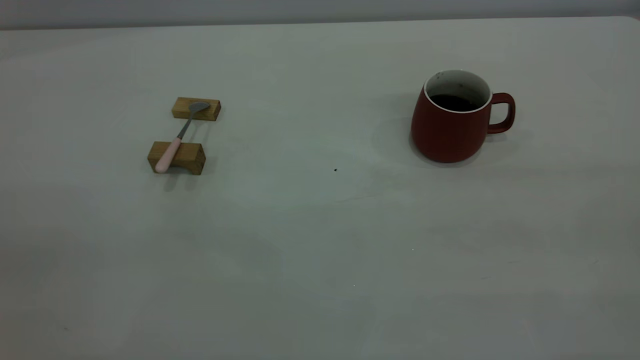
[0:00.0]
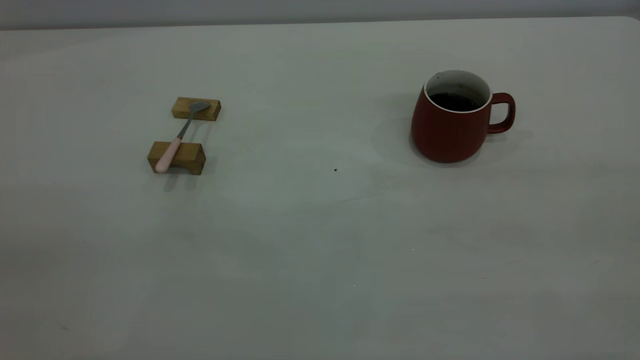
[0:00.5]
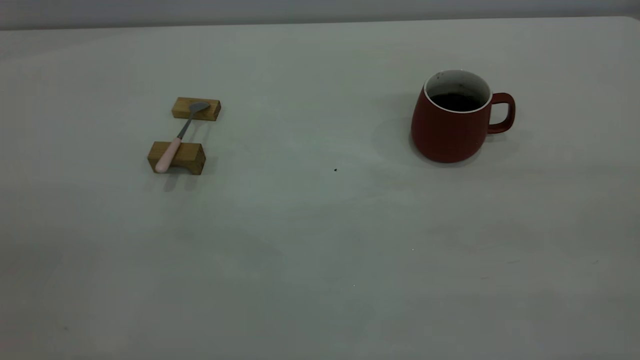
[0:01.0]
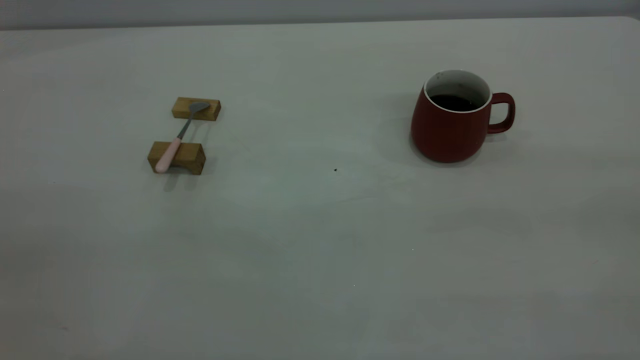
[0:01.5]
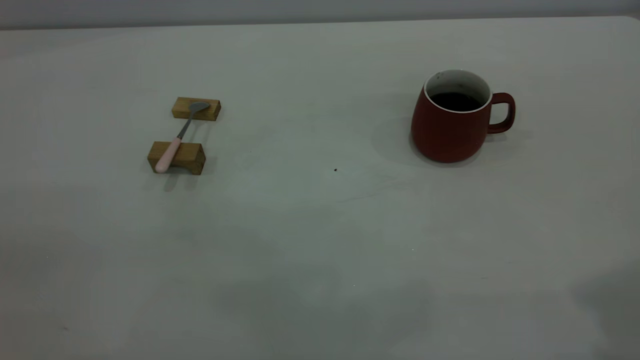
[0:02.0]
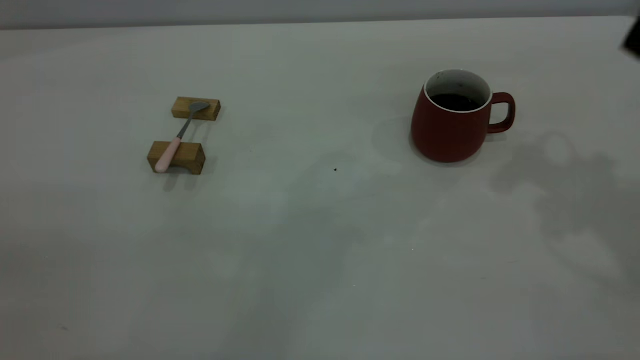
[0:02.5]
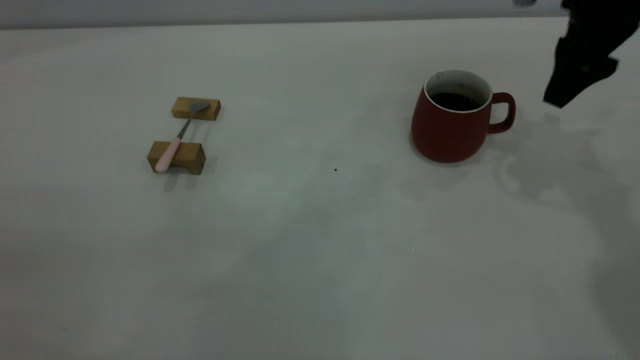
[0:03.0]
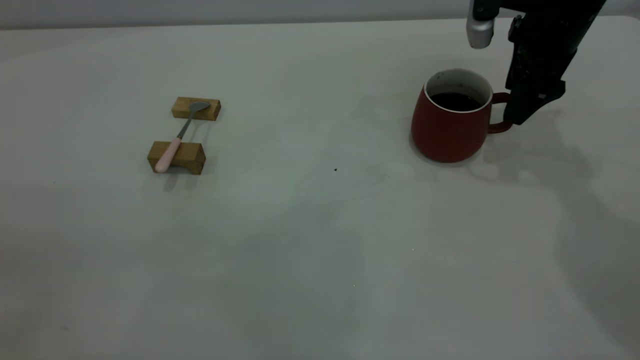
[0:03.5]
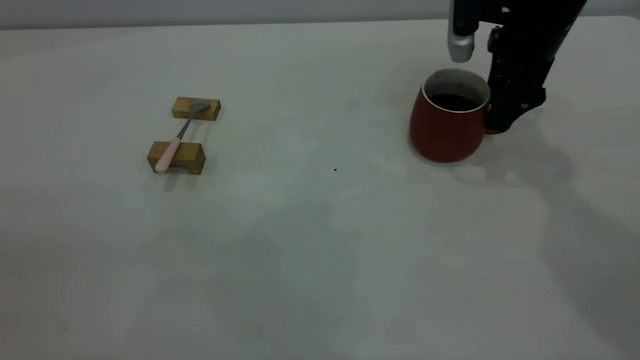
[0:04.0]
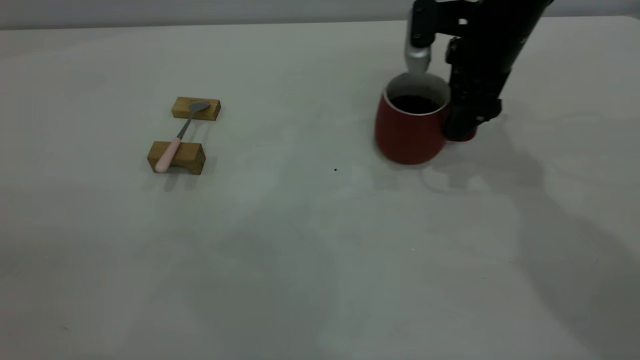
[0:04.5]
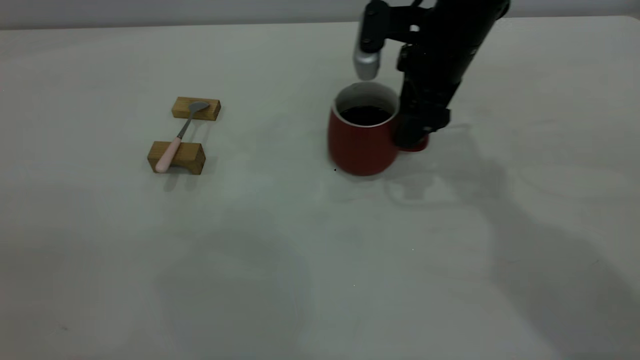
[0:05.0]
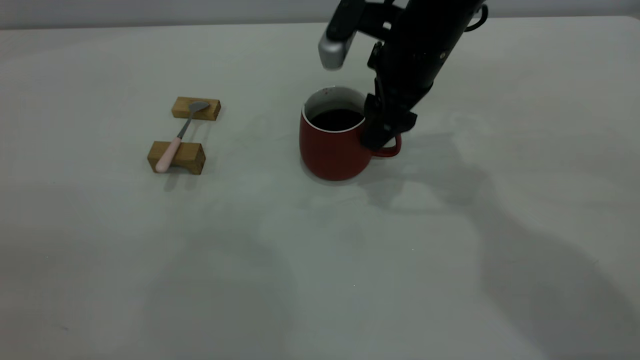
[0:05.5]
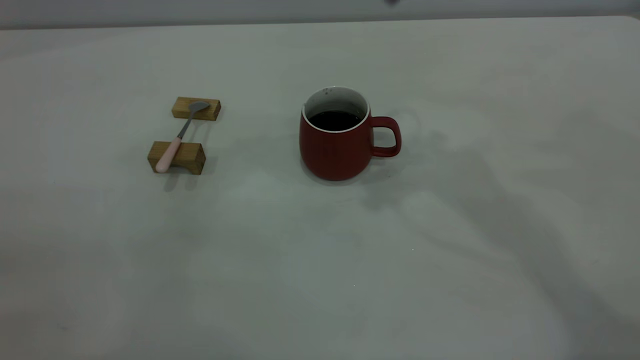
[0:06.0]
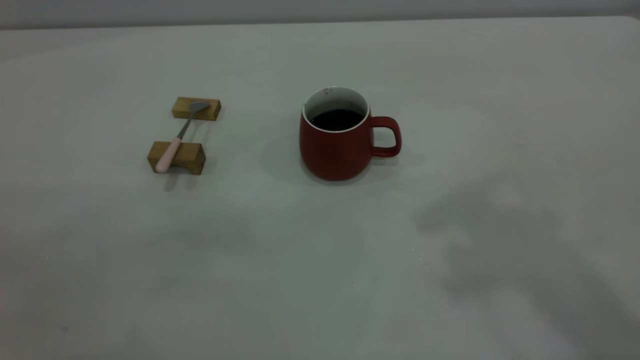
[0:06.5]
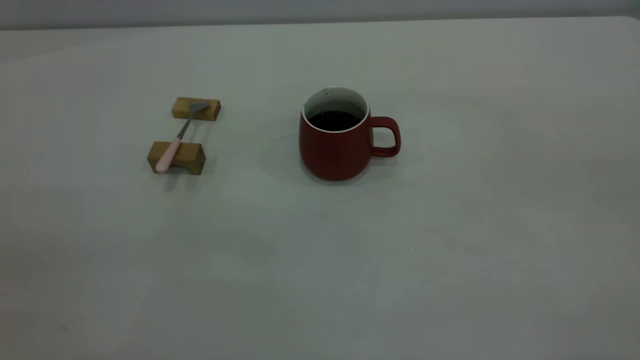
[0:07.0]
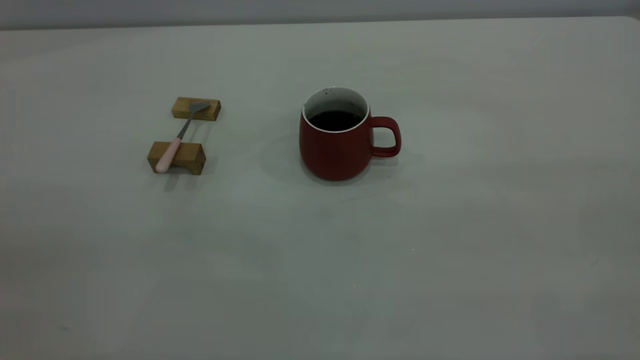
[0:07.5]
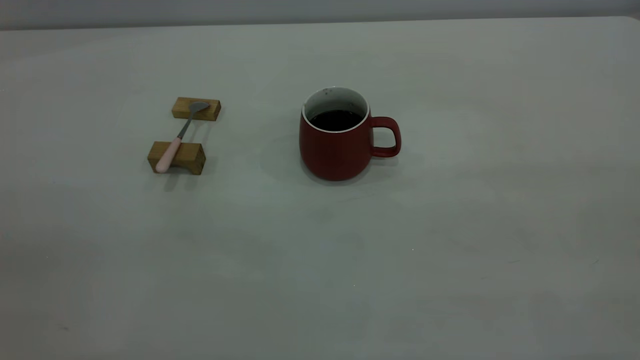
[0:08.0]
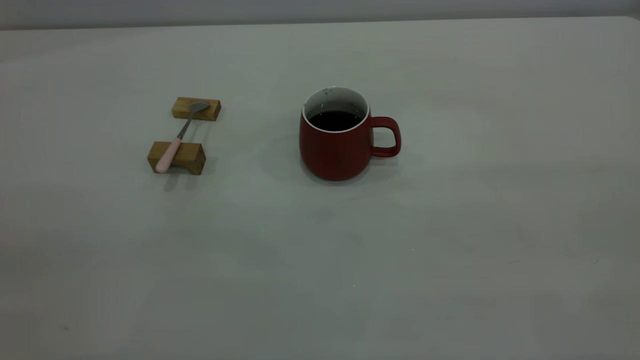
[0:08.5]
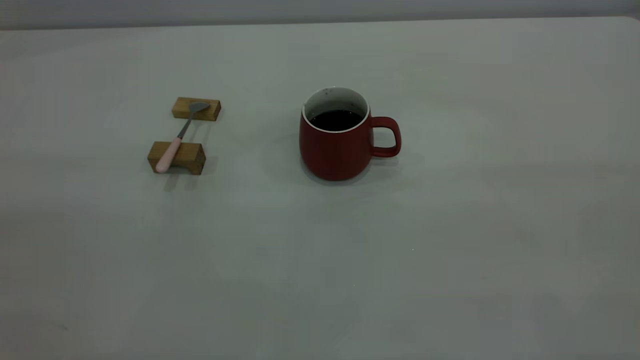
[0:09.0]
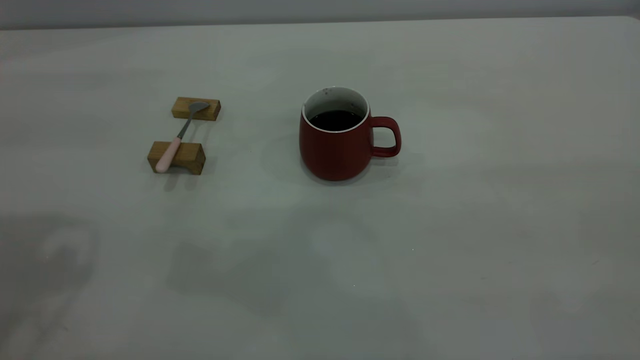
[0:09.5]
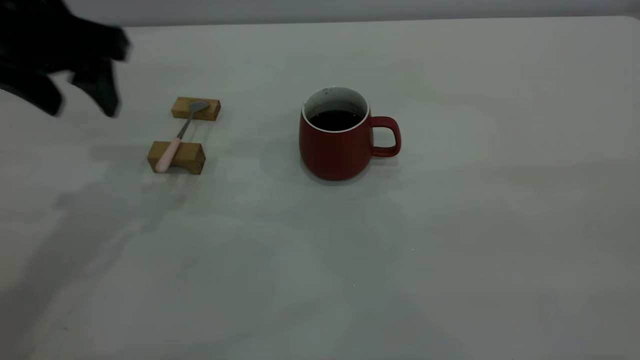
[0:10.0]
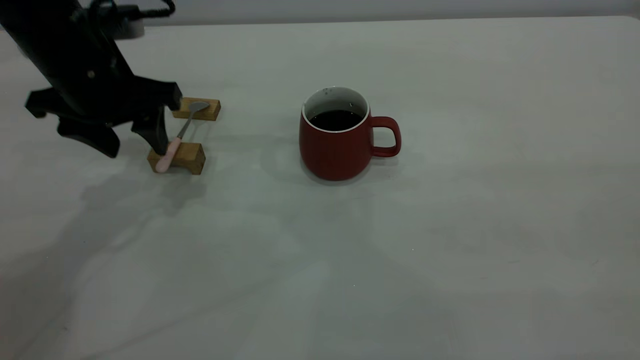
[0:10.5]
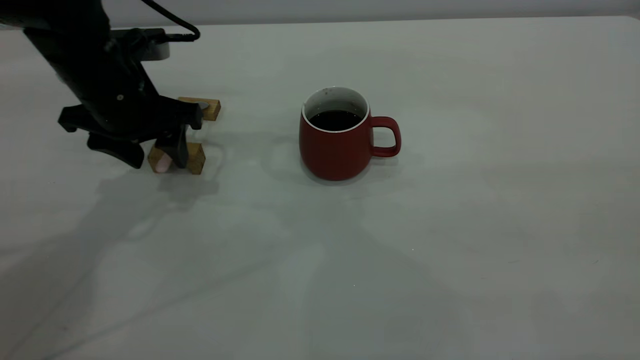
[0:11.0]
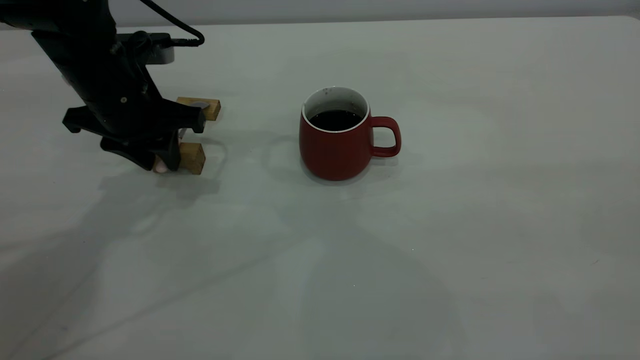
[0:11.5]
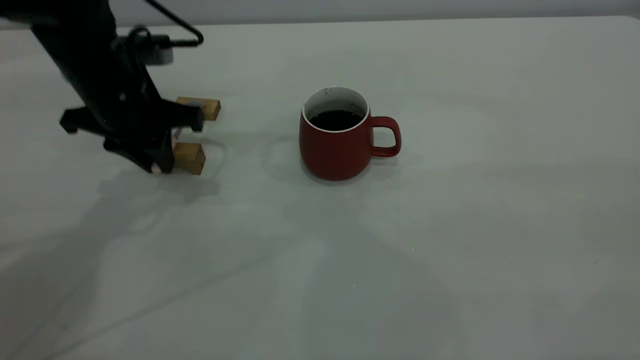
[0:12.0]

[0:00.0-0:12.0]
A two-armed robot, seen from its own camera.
Step, 0:00.0 to 0:05.5: Move the cup with coffee to the center of view.
0:02.0 to 0:04.0: The right gripper heads forward and downward, covering roughly 35 cm.
0:04.0 to 0:06.0: The right gripper goes some 25 cm upward and to the left.
0:08.0 to 0:10.0: The left gripper is displaced forward and downward by about 40 cm, and opens up.
0:10.0 to 0:12.0: The left gripper goes about 10 cm downward, and closes up.

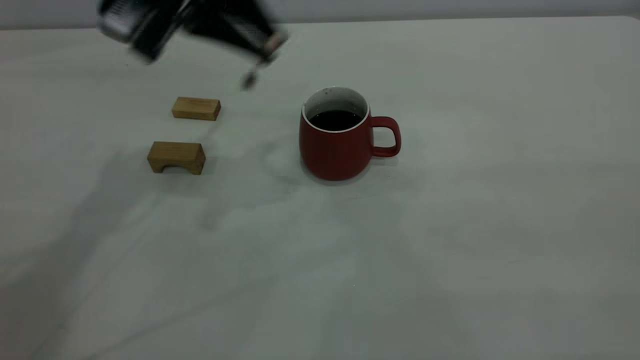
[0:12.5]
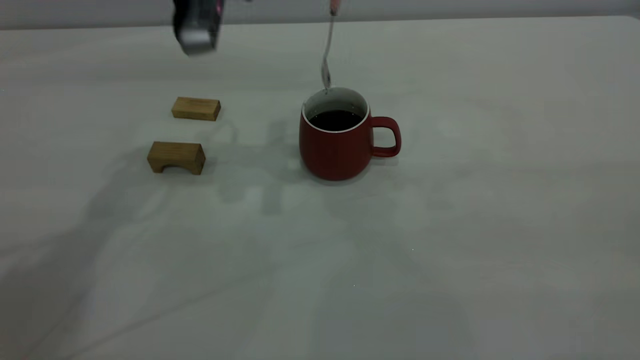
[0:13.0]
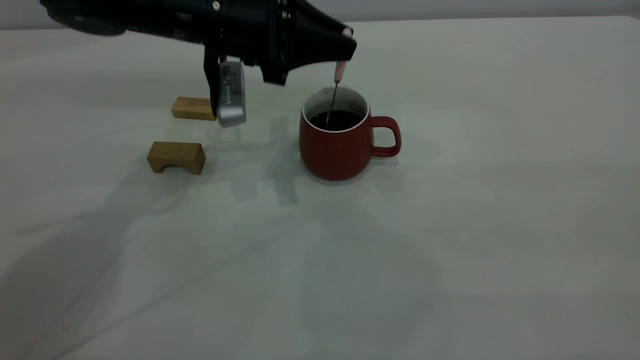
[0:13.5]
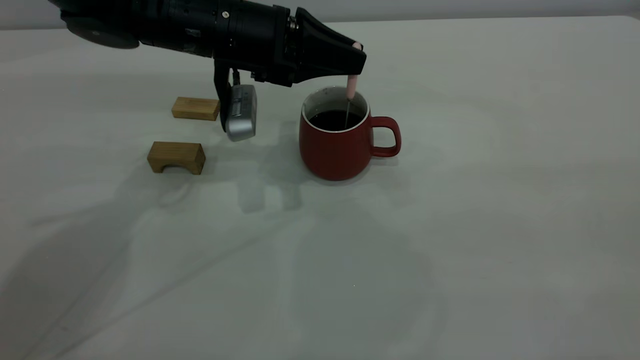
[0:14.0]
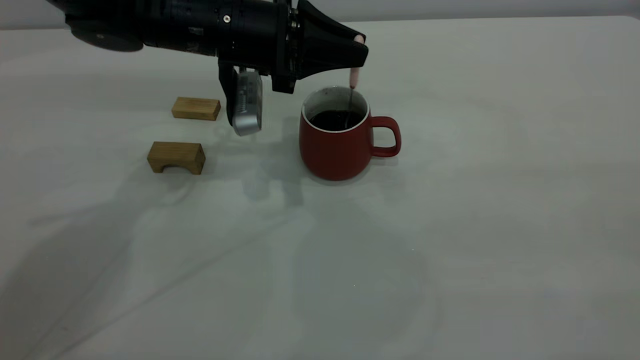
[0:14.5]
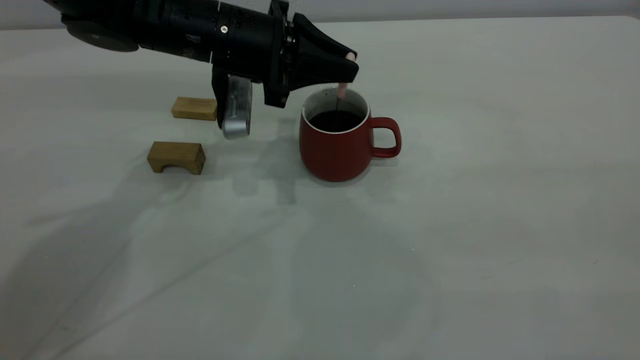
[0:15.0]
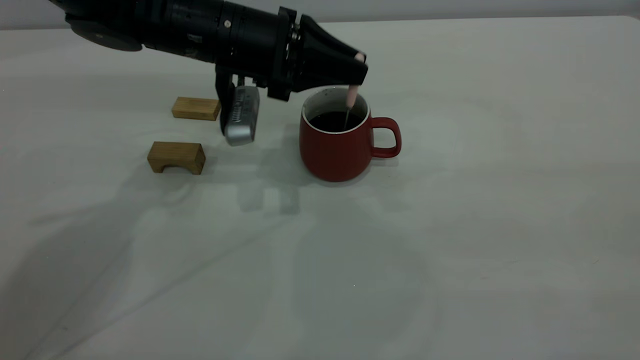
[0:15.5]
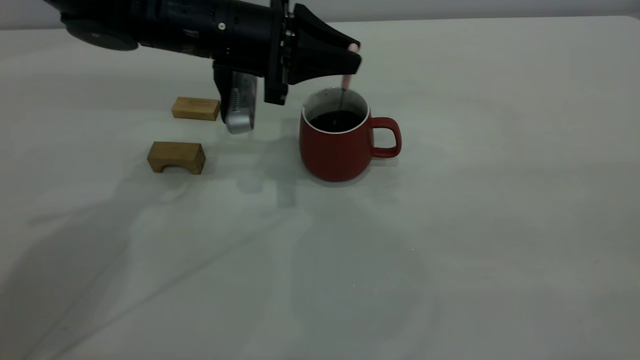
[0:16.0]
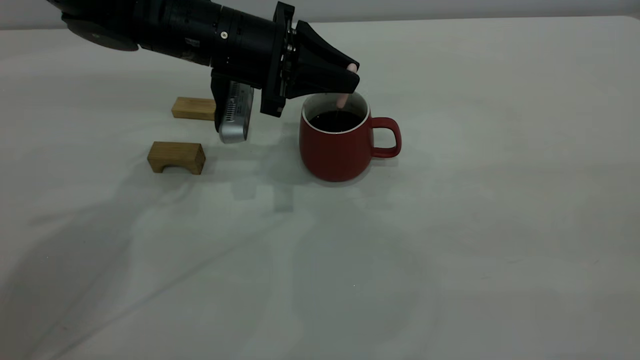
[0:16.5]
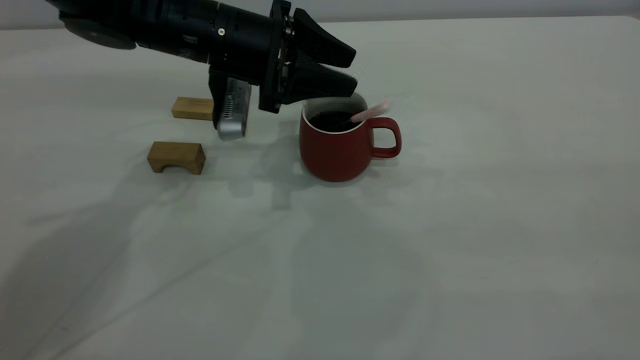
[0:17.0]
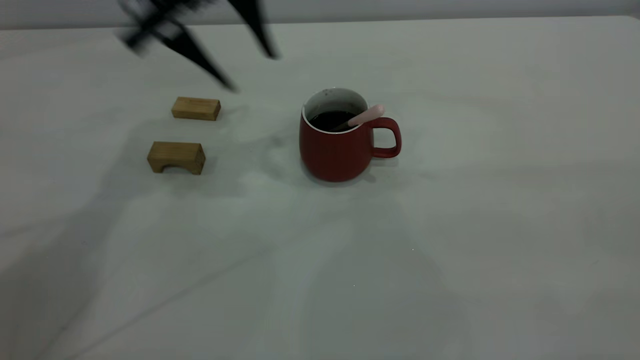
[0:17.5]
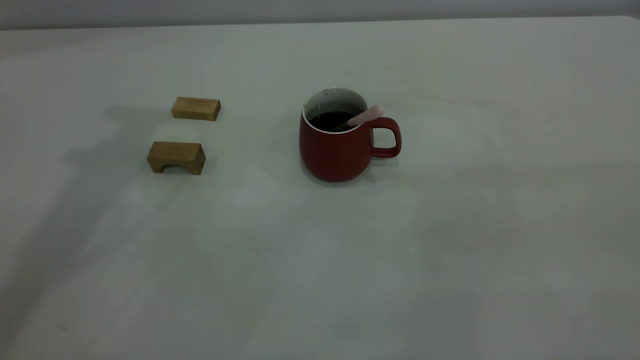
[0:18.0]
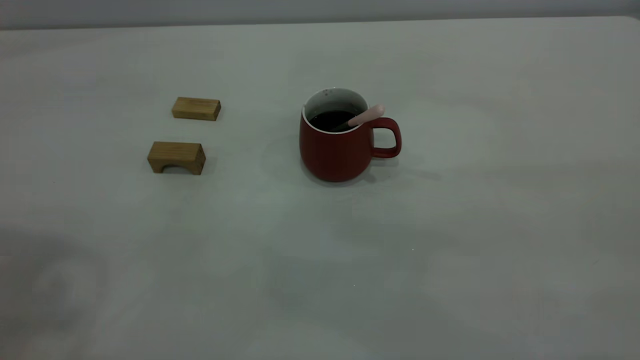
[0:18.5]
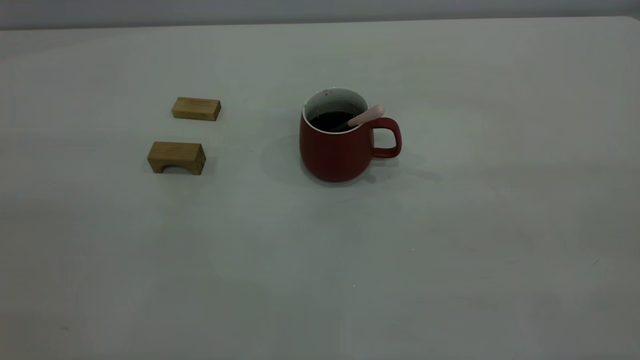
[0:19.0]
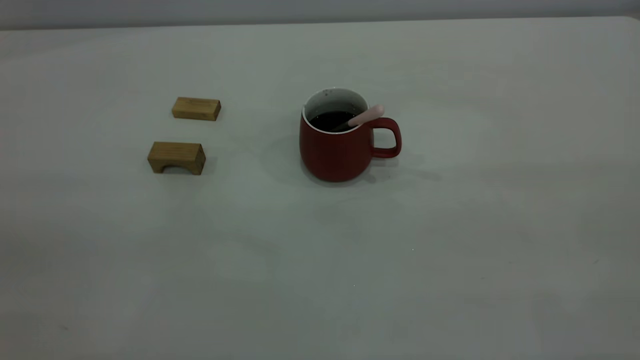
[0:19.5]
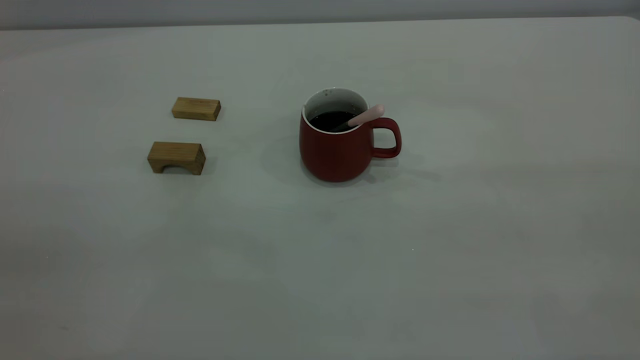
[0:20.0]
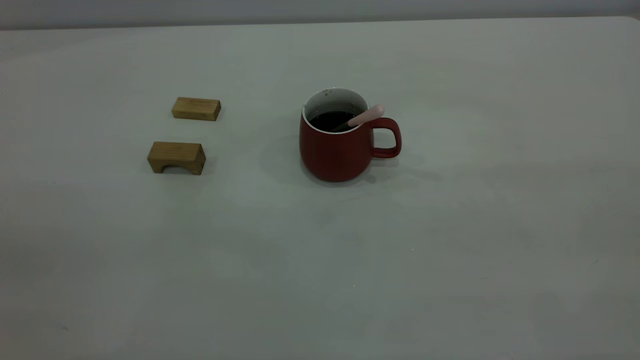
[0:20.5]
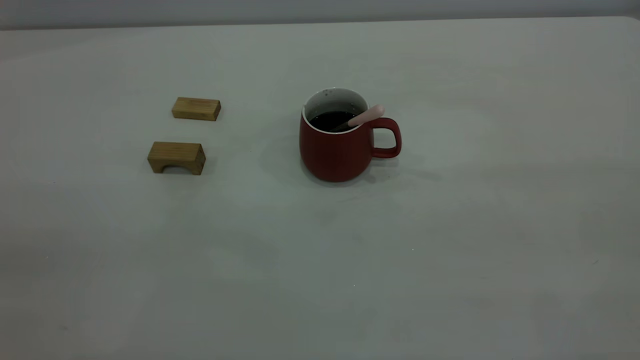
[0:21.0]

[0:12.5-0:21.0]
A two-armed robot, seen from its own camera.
Step, 0:12.5 to 0:17.0: Stir the coffee in the cup.
0:12.5 to 0:14.5: The left gripper moves downward, some 10 cm.
0:14.5 to 0:16.5: The grippers stay close to where they were, moving slightly.
0:16.5 to 0:19.0: The left gripper goes about 50 cm backward, upward and to the left, and opens its fingers.
